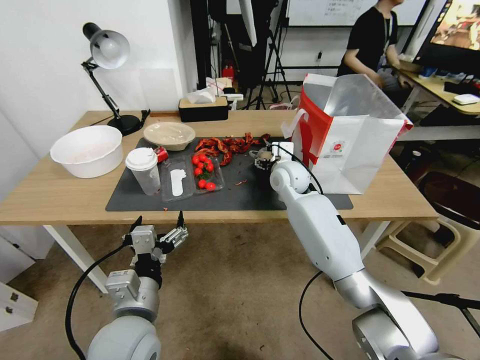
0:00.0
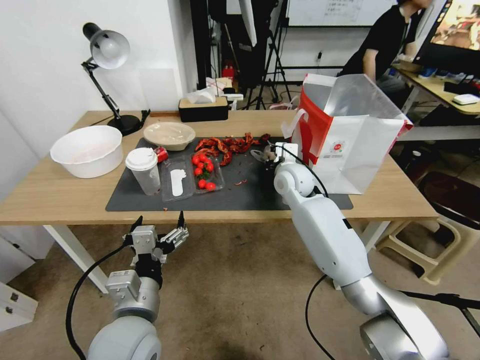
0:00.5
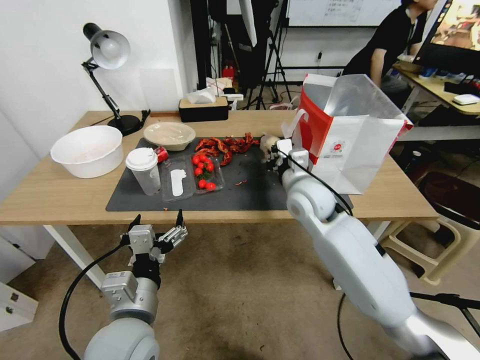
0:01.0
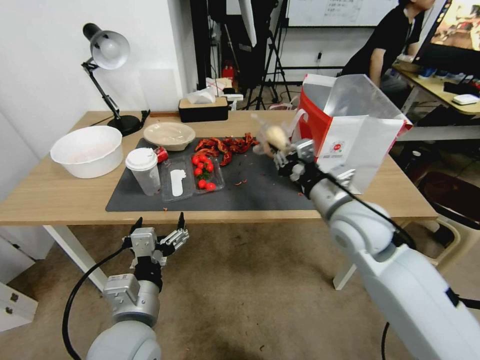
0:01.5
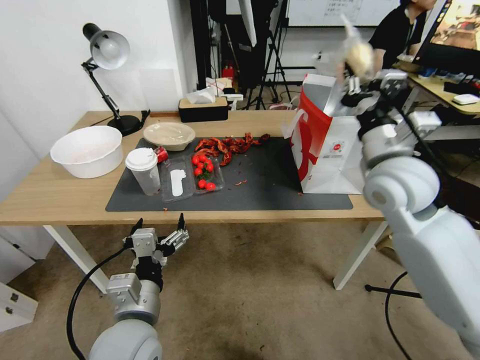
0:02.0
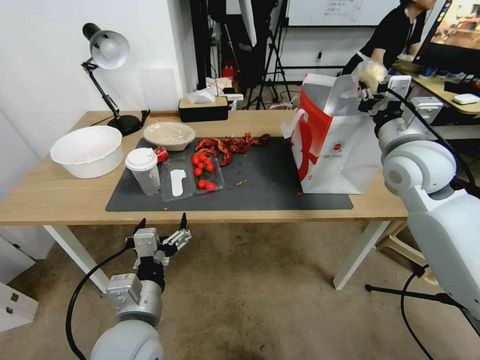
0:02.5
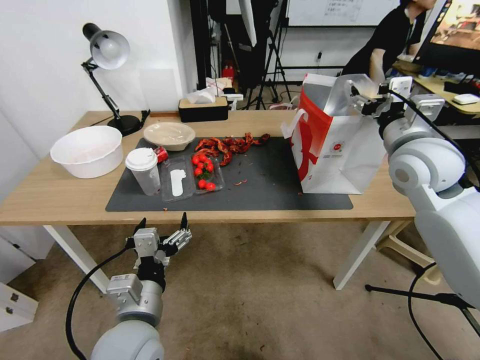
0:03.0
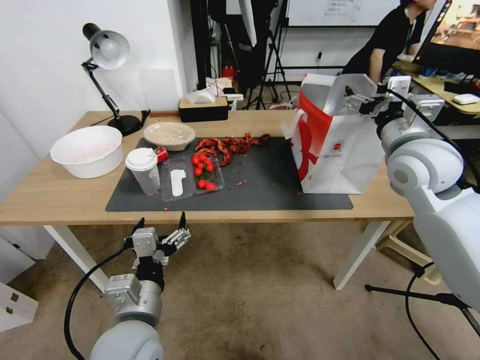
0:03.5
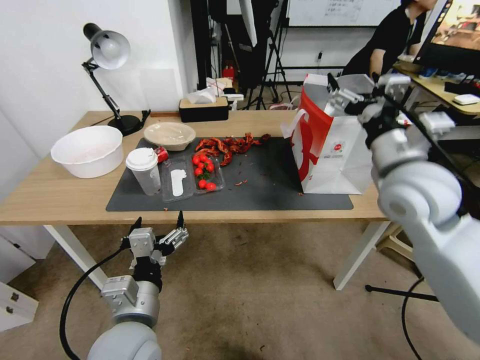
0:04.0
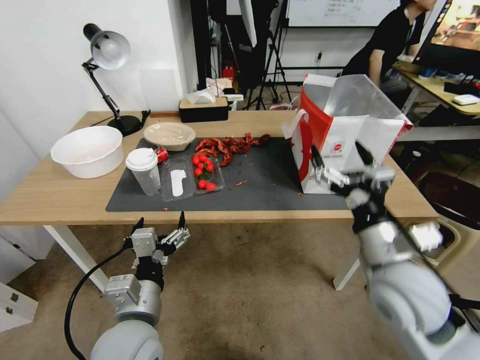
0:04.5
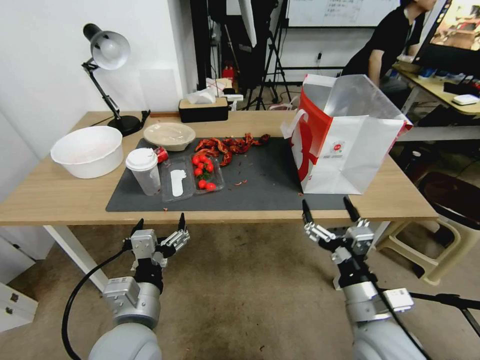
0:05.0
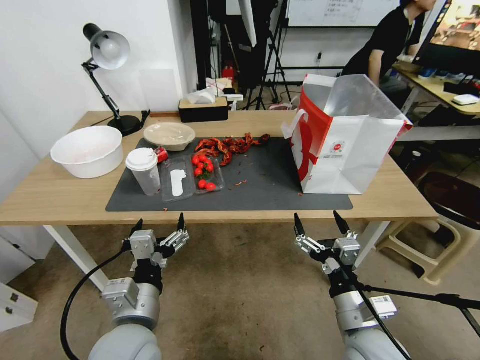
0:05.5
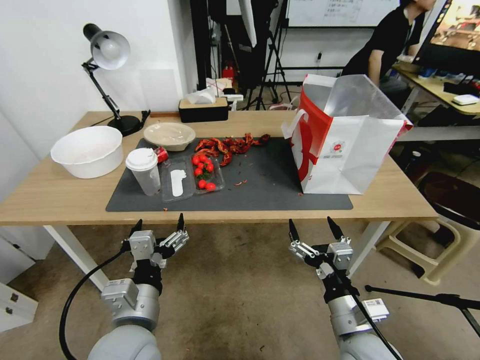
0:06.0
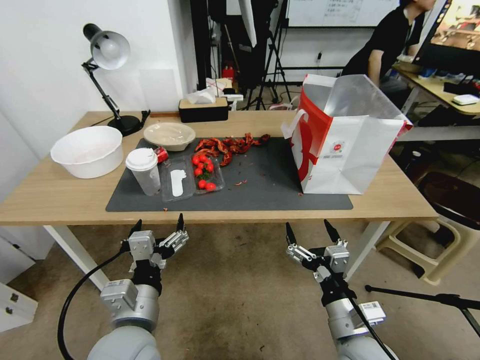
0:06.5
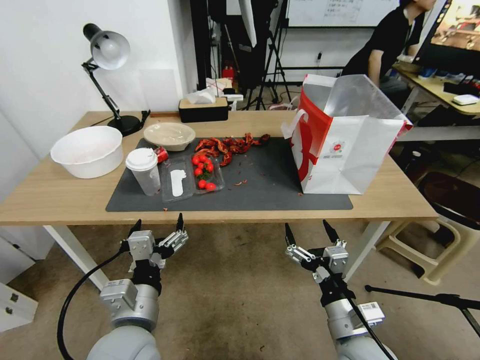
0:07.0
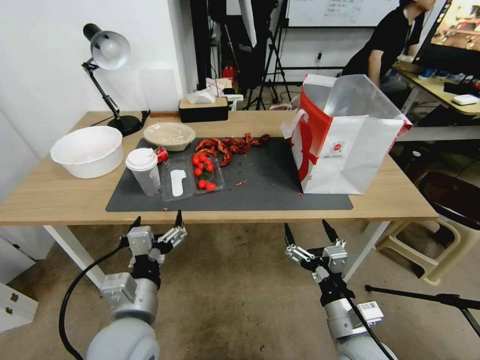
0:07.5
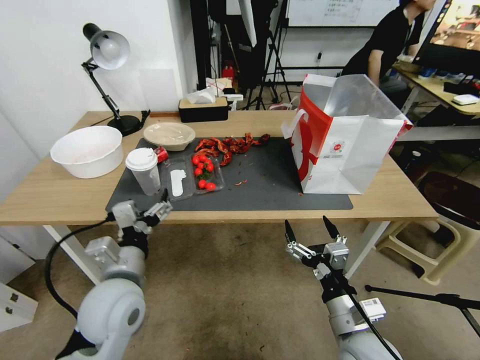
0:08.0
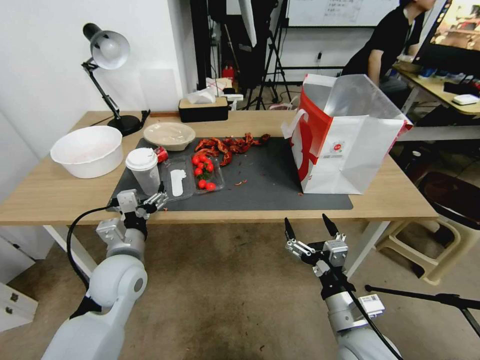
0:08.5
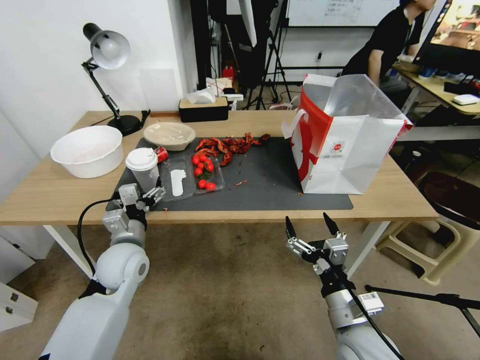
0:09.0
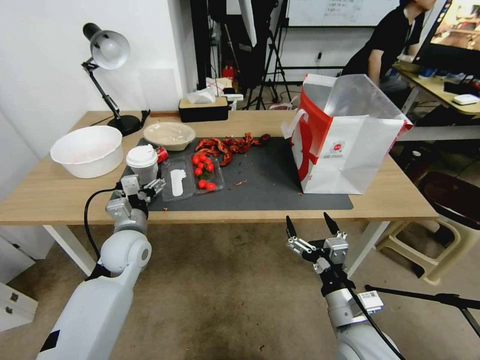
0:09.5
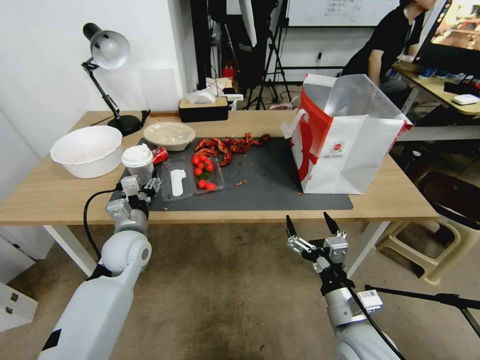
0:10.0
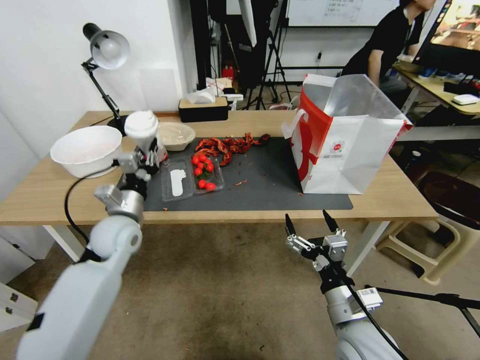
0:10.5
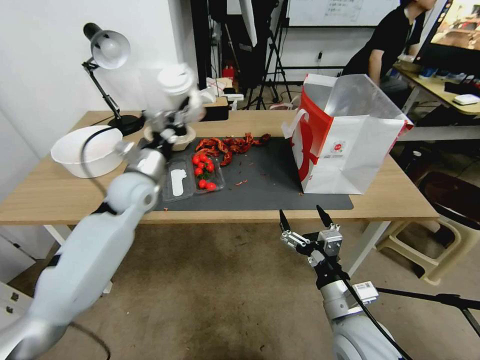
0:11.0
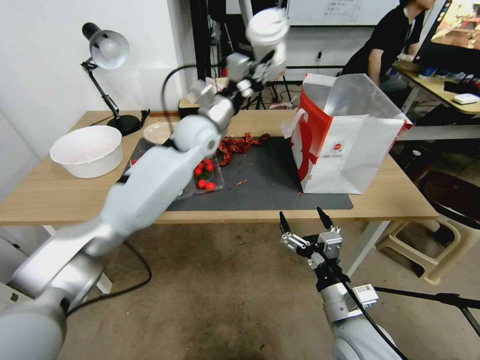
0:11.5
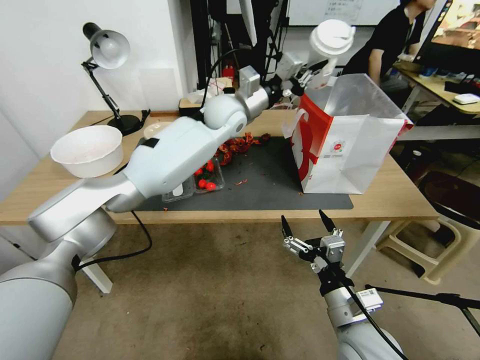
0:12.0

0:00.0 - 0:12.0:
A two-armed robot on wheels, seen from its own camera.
0:00.0 - 0:02.0: The right gripper moves backward, upward and to the right, approximately 25 cm, and closes its fingers.
0:02.0 - 0:04.0: The right gripper opens its fingers.
0:04.0 - 0:06.0: The right gripper goes some 35 cm downward and backward.
0:06.0 - 0:08.0: The left gripper moves forward, roughly 5 cm.
0:08.0 - 0:10.0: The left gripper is displaced forward and downward by roughly 15 cm.
0:10.0 - 0:12.0: The left gripper moves forward, upward and to the right, some 40 cm, and closes up.

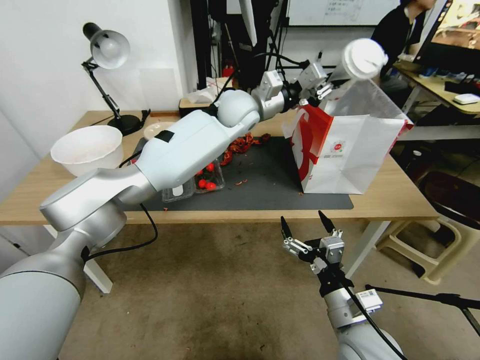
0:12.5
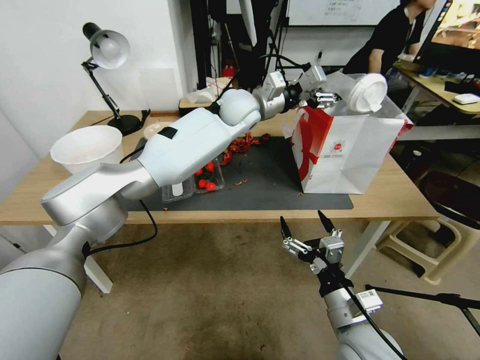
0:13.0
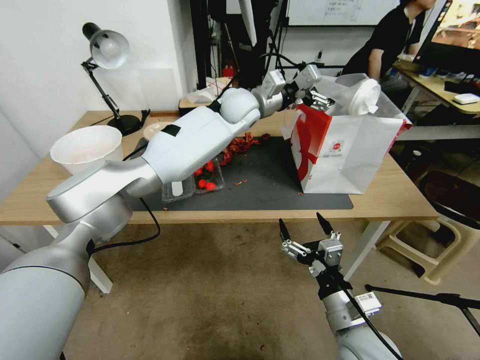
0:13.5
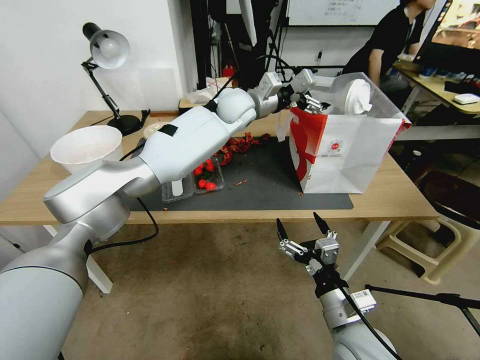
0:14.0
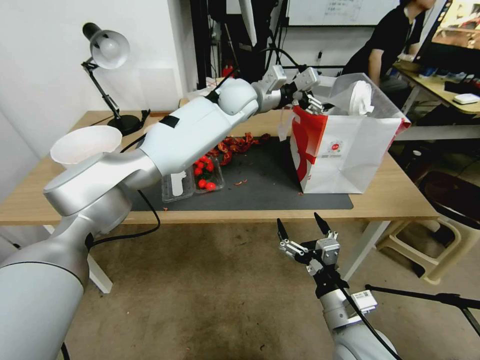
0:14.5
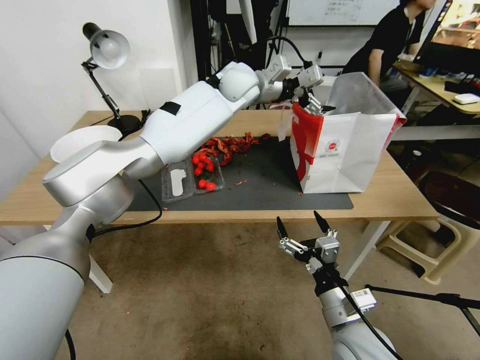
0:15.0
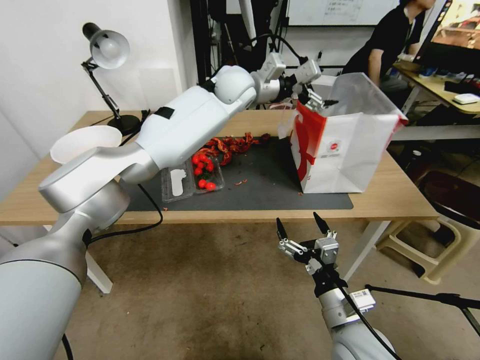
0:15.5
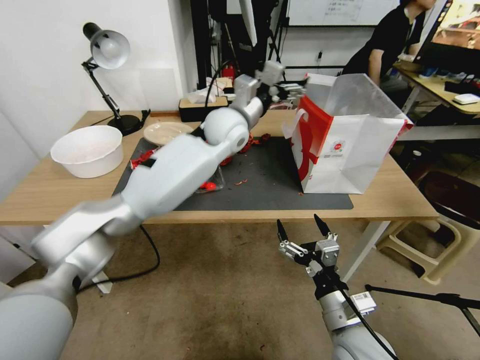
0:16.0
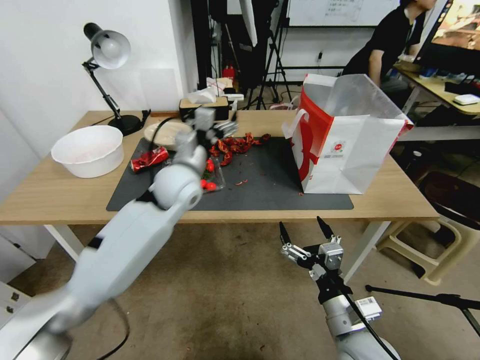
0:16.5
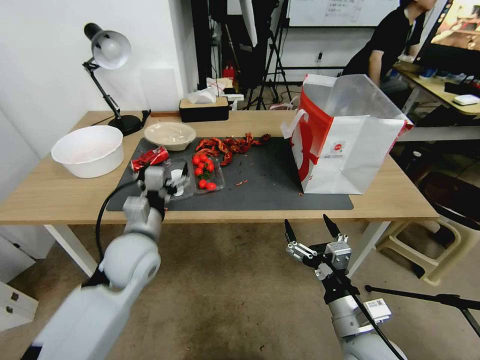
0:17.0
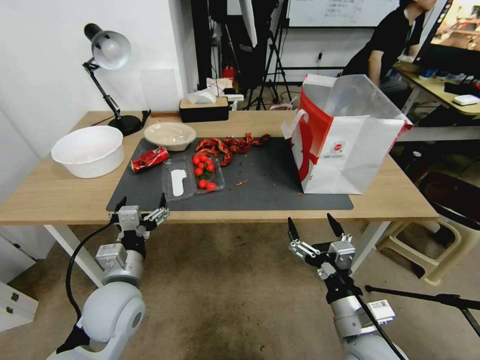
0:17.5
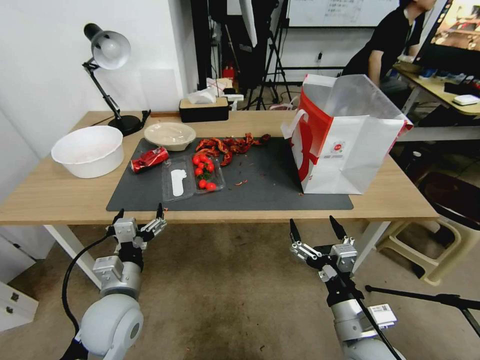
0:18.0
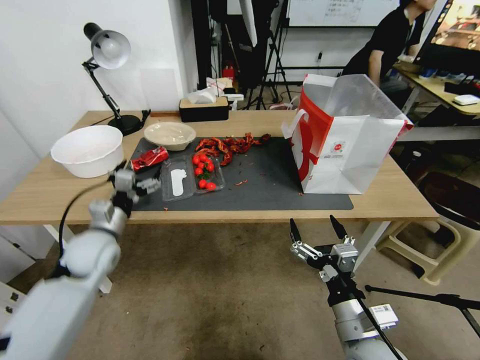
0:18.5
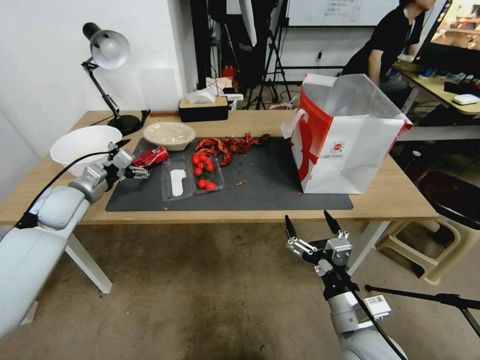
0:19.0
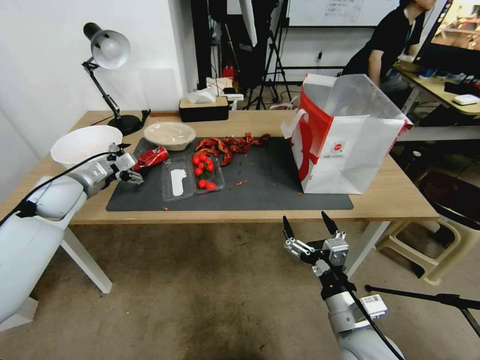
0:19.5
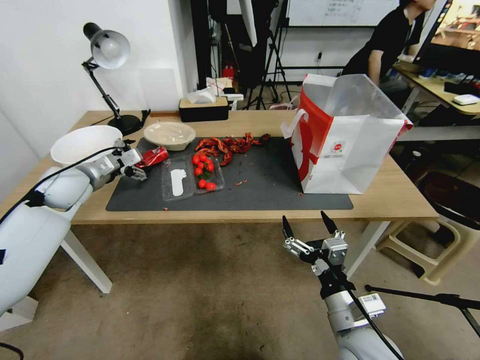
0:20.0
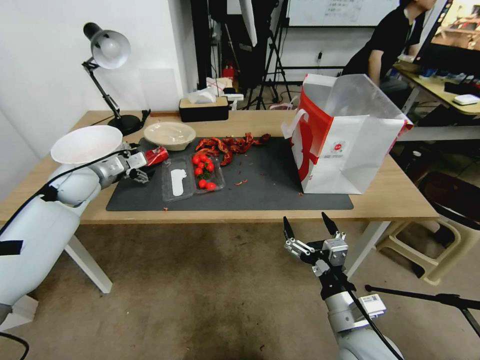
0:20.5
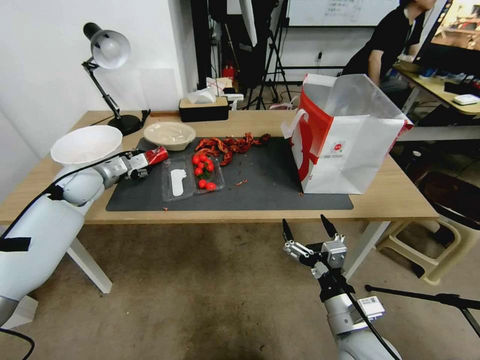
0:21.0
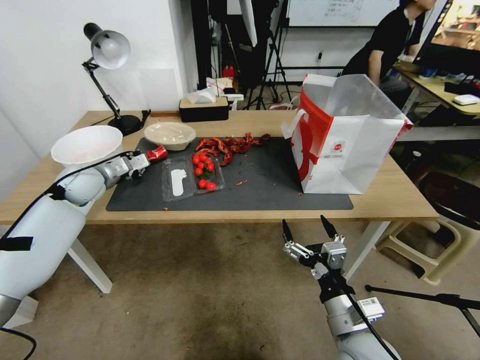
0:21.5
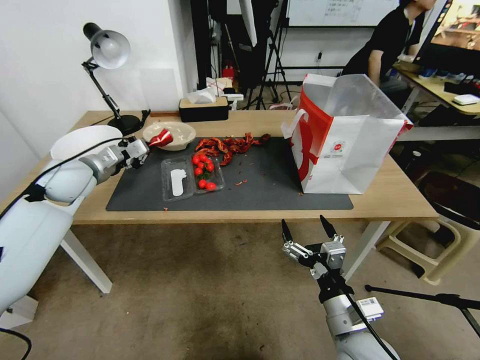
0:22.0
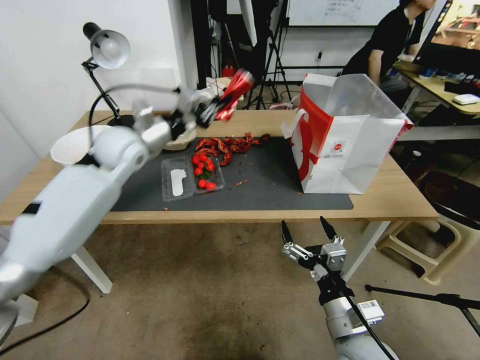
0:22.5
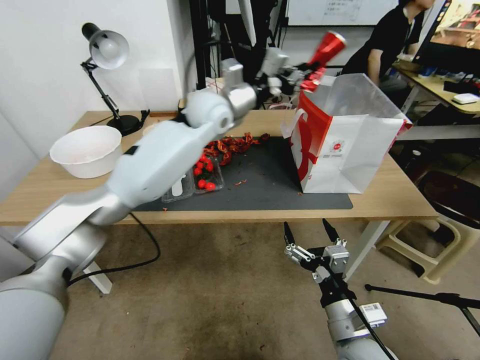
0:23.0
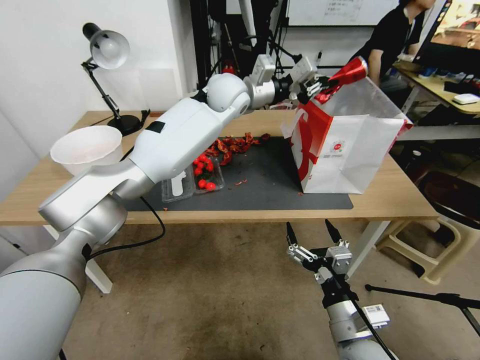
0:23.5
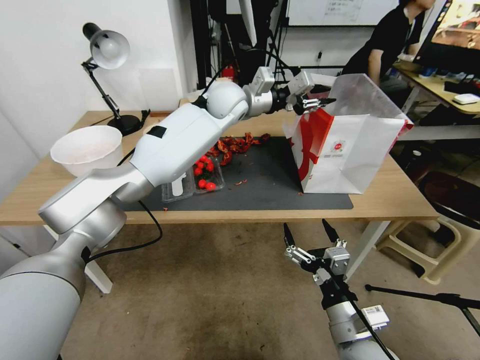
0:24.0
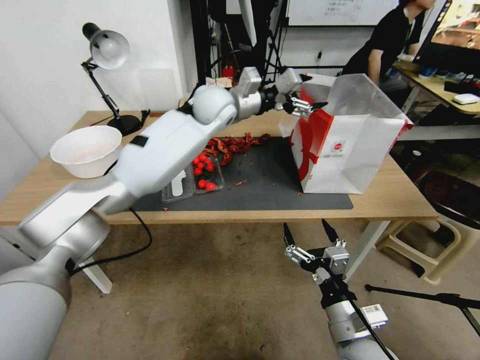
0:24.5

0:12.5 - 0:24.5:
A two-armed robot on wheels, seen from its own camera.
0:12.5 - 0:14.5: The left gripper opens.
0:14.5 - 0:16.5: The left gripper travels backward, to the left and downward by some 25 cm.
0:16.5 - 0:18.5: The left gripper travels to the left, downward and backward by approximately 20 cm.
0:18.5 - 0:20.5: The left gripper heads forward, upward and to the left, covering about 15 cm.
0:20.5 - 0:22.5: The left gripper shifts roughly 15 cm to the right and upward, and closes.
0:22.5 - 0:24.5: The left gripper moves to the right and forward, about 20 cm, and opens.

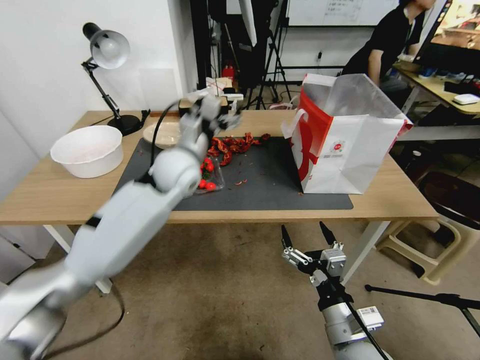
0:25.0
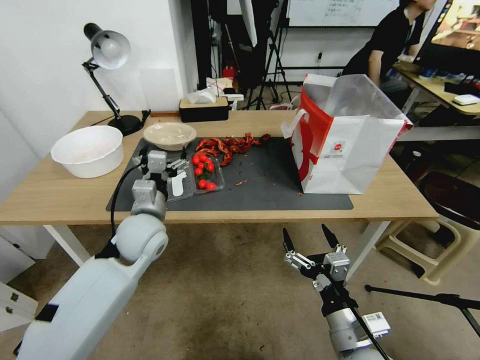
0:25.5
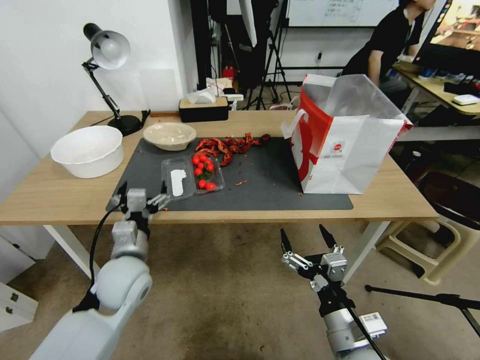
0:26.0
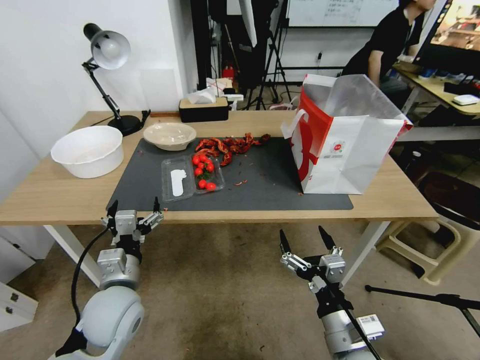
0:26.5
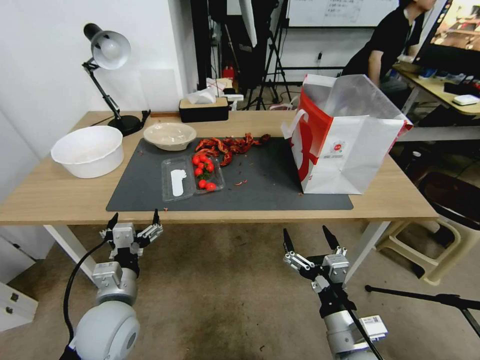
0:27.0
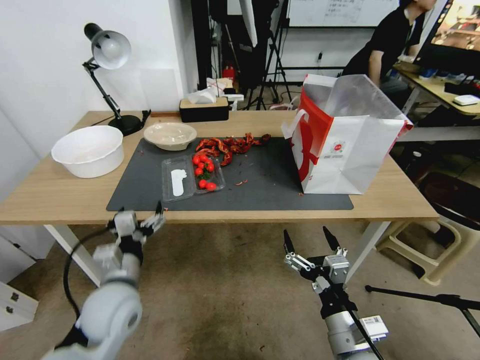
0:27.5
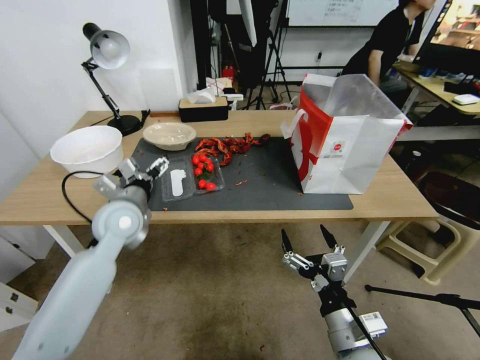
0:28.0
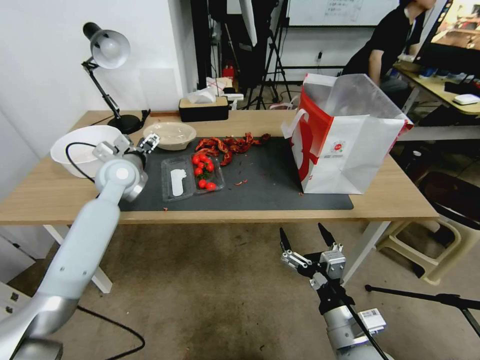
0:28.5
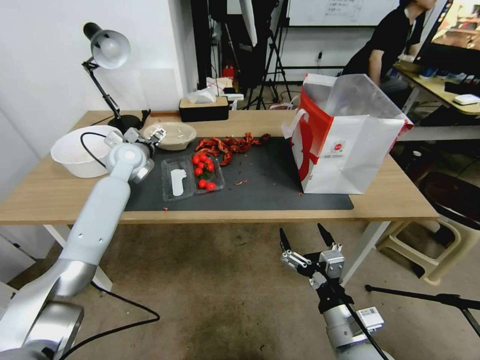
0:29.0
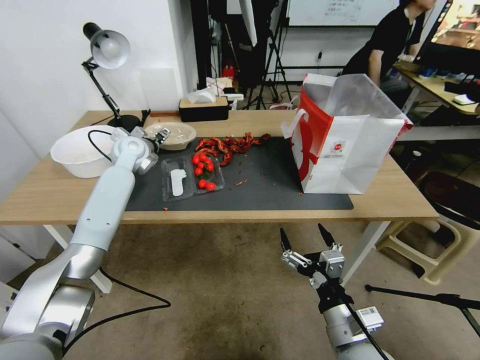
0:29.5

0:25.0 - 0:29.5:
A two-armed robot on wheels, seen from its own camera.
0:25.0 - 0:27.0: The left gripper heads backward and downward, covering roughly 30 cm.
0:27.0 - 0:29.5: The left gripper travels forward by approximately 35 cm.
